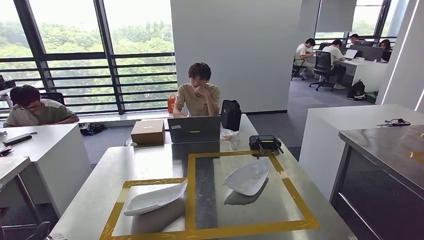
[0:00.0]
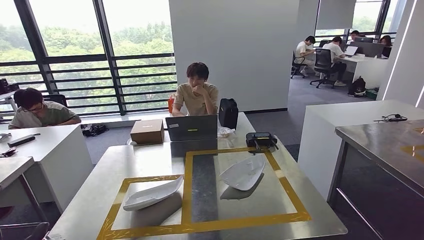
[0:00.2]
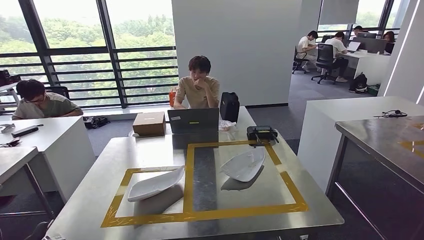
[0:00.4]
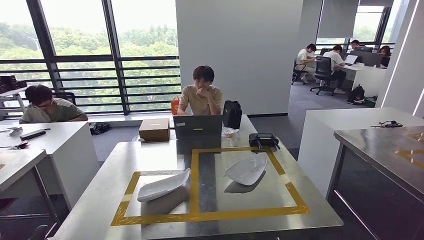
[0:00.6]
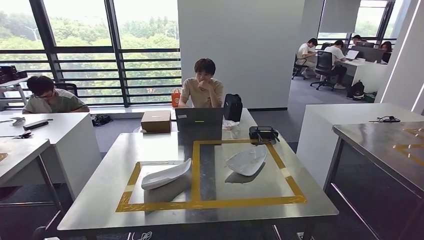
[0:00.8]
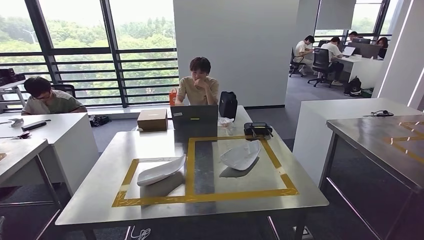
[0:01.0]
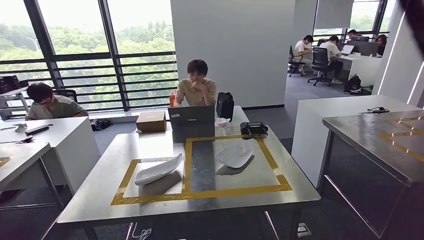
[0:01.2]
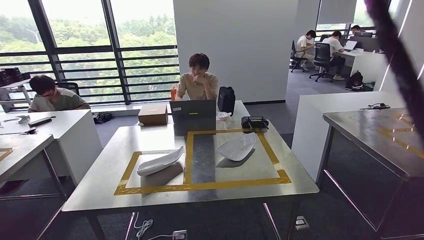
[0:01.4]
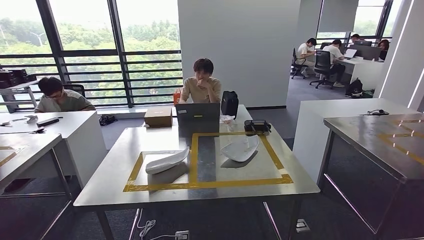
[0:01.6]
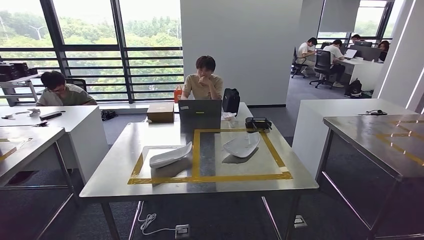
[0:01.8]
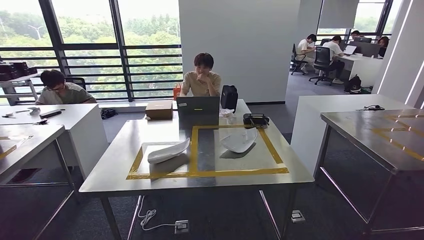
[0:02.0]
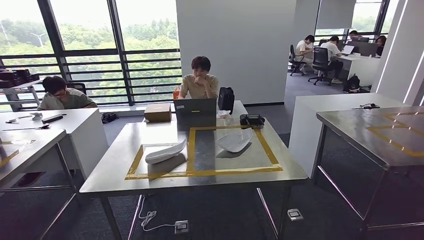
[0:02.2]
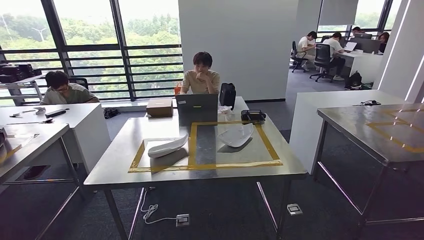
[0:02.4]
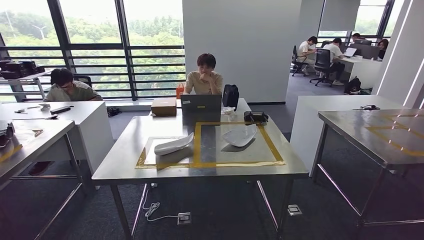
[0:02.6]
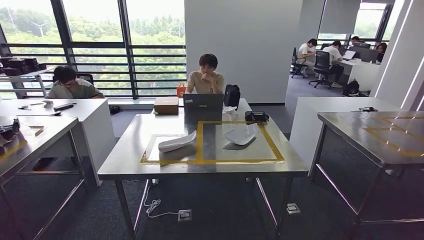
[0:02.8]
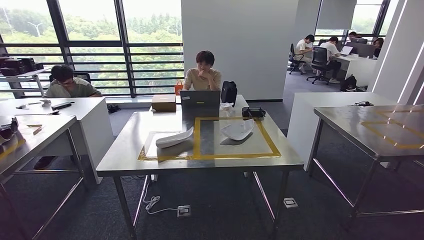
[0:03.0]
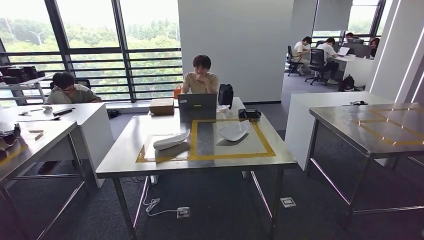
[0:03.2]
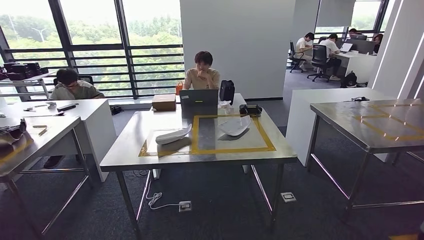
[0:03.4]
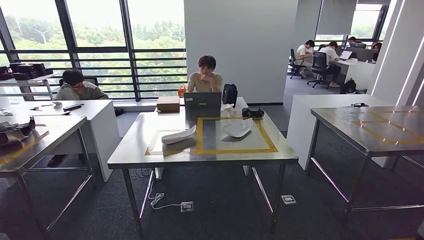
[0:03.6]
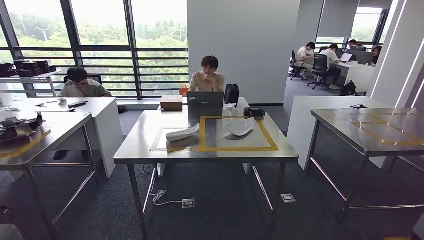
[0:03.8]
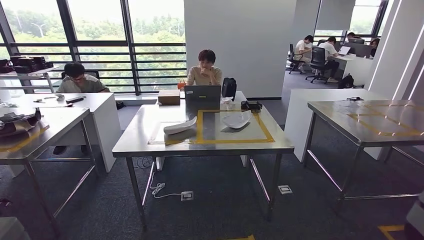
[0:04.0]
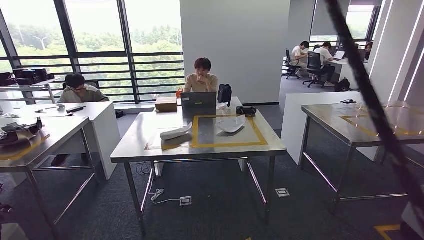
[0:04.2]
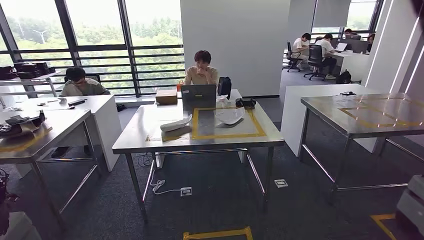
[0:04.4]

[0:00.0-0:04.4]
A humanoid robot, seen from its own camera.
Step, 0:00.2 to 0:04.2: Return to the initial position at the workbench.
